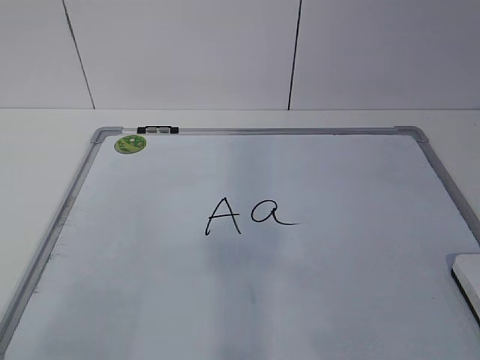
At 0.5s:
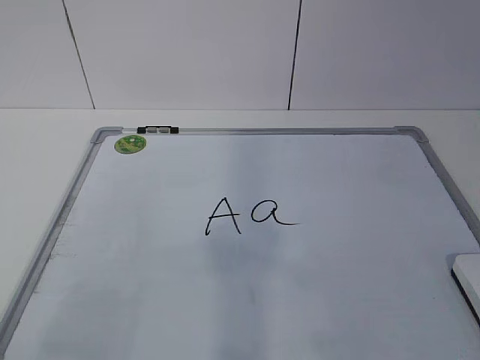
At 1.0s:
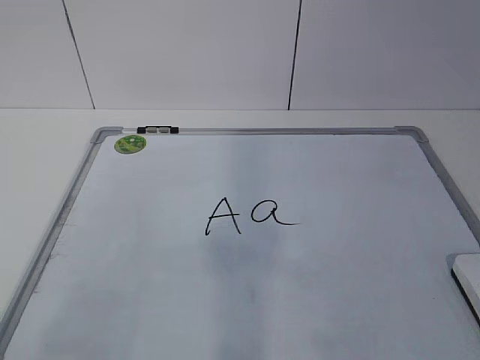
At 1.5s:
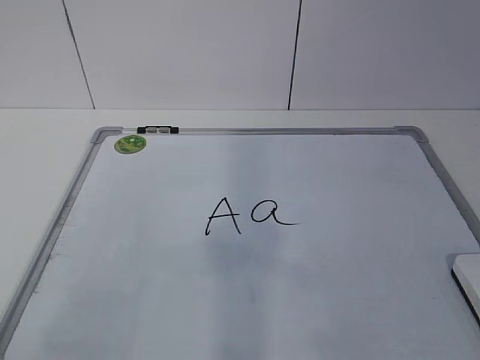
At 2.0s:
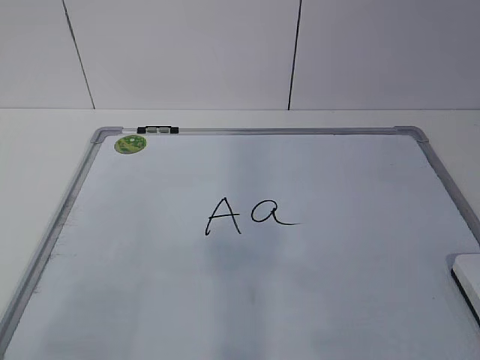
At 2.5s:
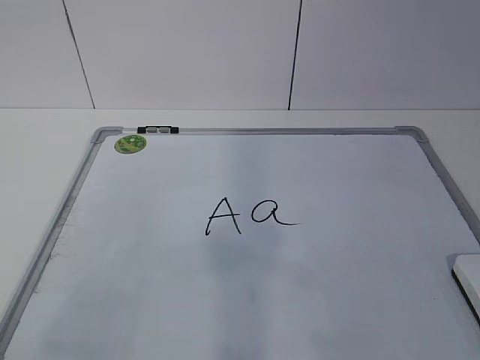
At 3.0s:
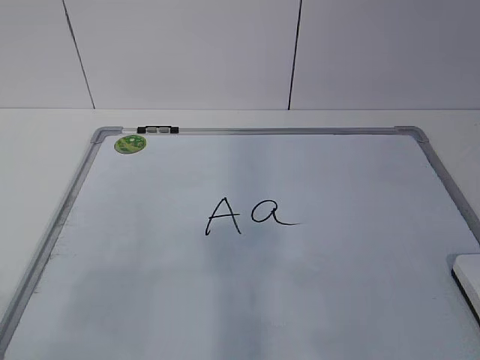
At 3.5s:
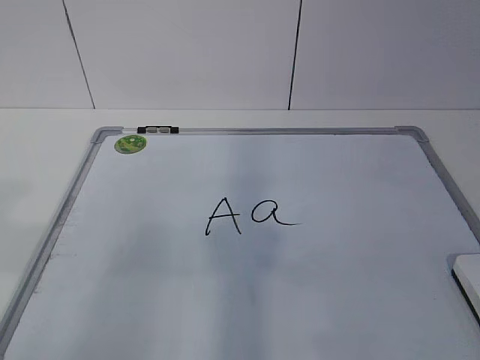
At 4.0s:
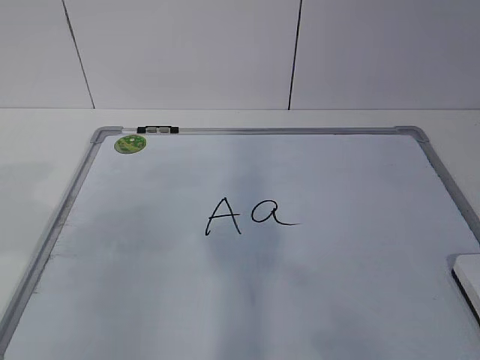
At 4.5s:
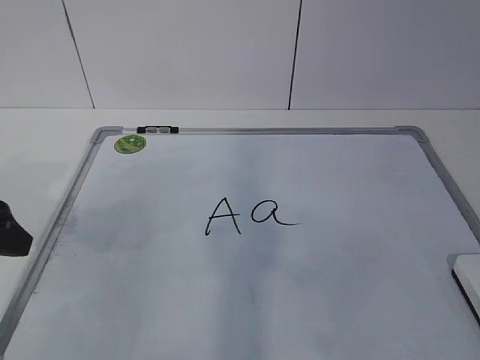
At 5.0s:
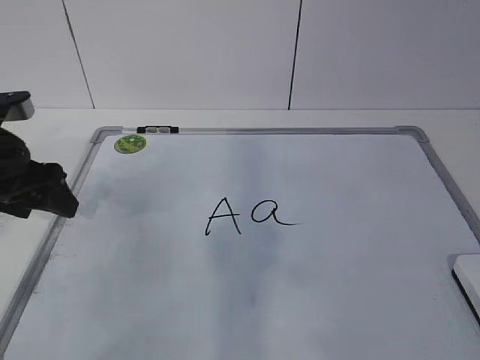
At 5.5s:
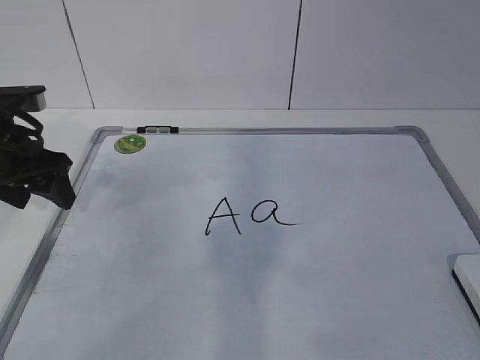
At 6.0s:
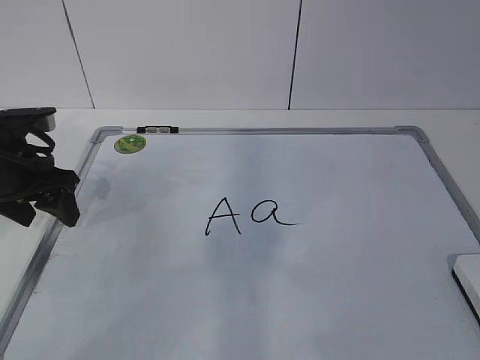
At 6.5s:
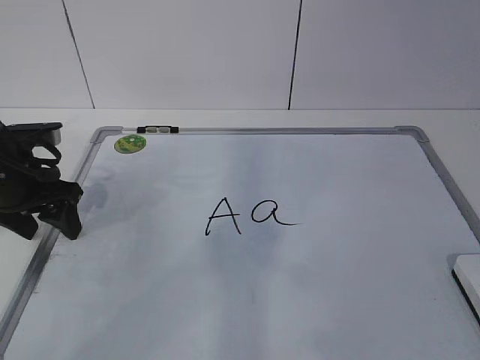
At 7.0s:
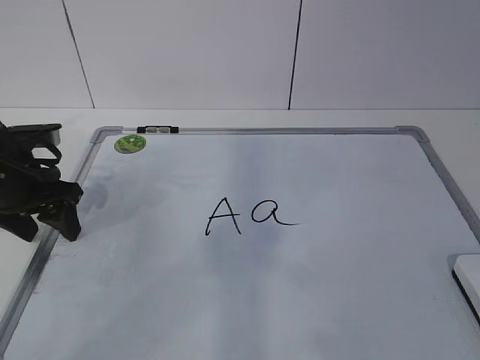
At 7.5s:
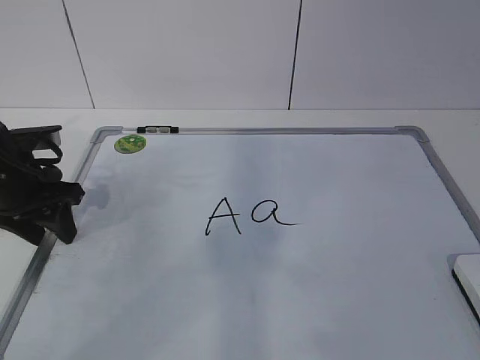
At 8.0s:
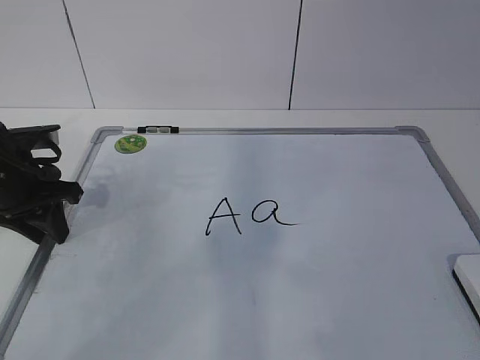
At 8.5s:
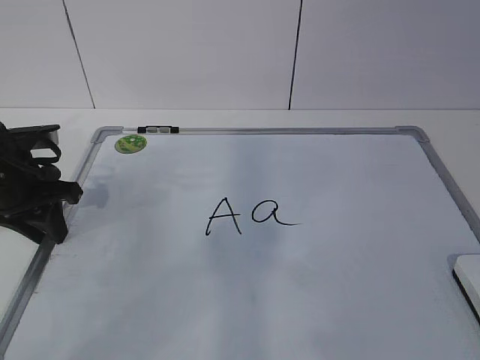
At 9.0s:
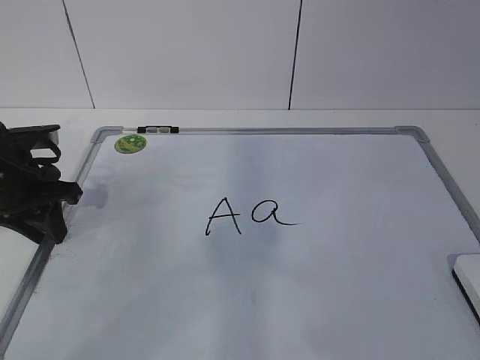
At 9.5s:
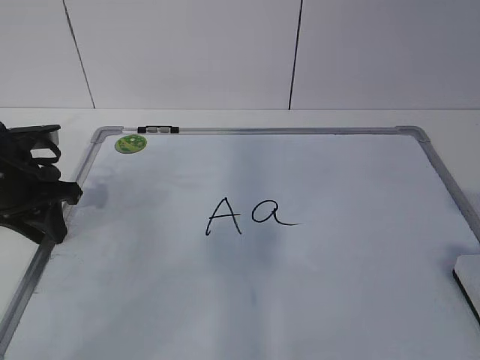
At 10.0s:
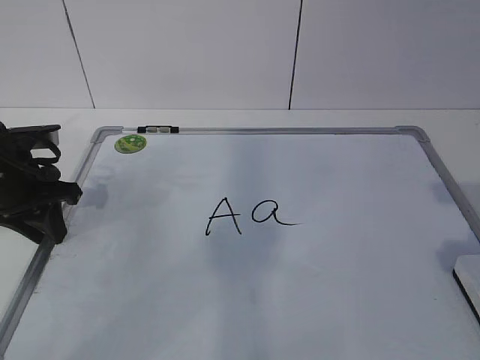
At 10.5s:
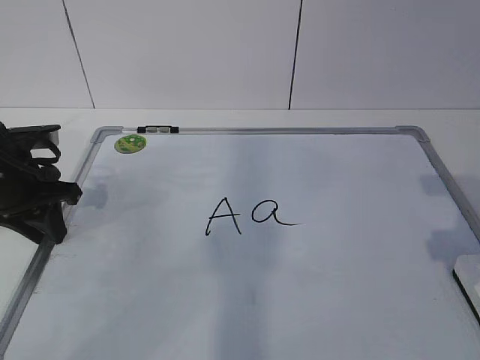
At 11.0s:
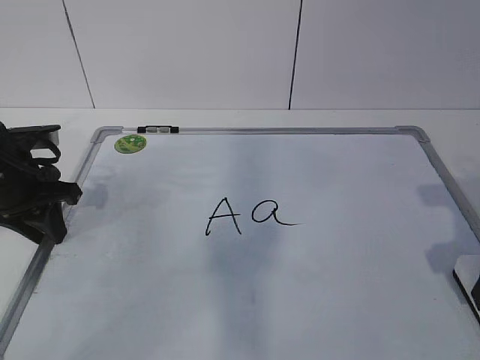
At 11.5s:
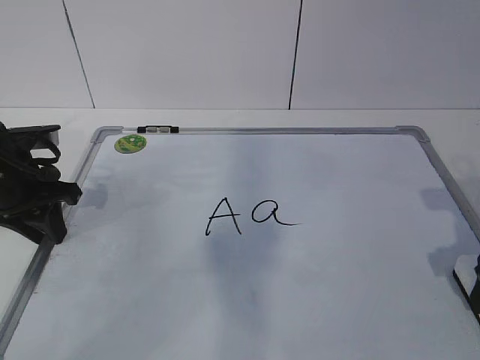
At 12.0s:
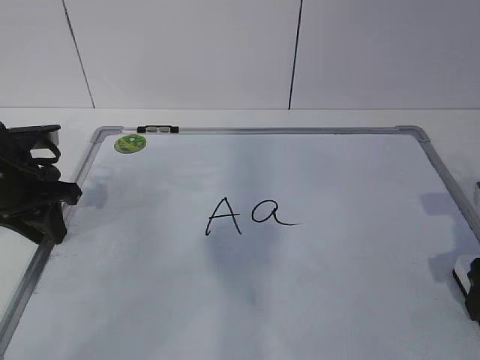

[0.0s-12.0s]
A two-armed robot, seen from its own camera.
Task of the whole recording: pick up the eraser on the blackboard and erase the letter "a".
Step, 0.0s to 6.5s: Hold the drawing board steady with your left hand.
4.0s to 6.0s: The left gripper goes roughly 20 cm forward and downward.
6.0s to 8.0s: The left gripper closes its fingers.
10.0s to 12.0s: The right gripper goes approximately 10 cm downward and forward.

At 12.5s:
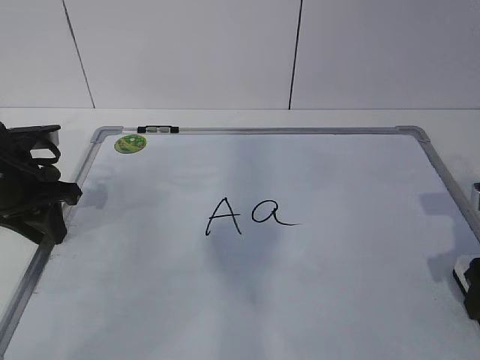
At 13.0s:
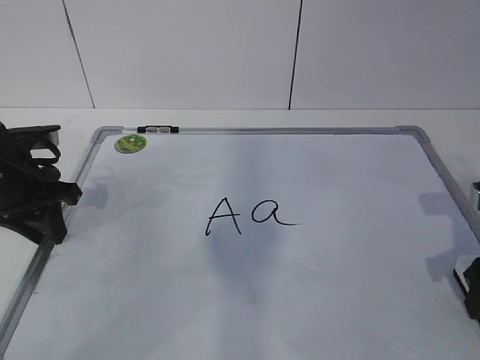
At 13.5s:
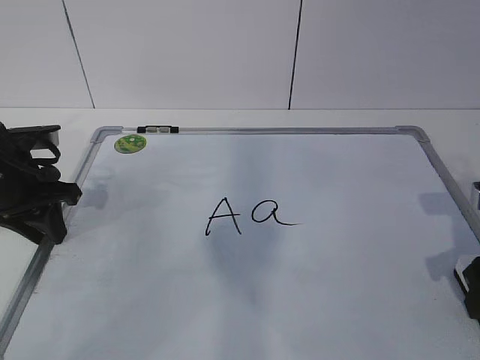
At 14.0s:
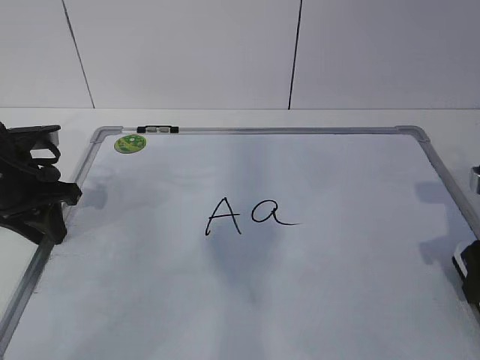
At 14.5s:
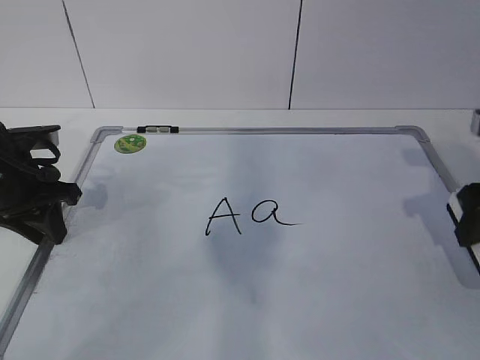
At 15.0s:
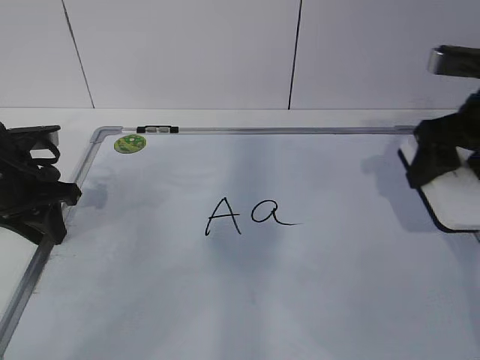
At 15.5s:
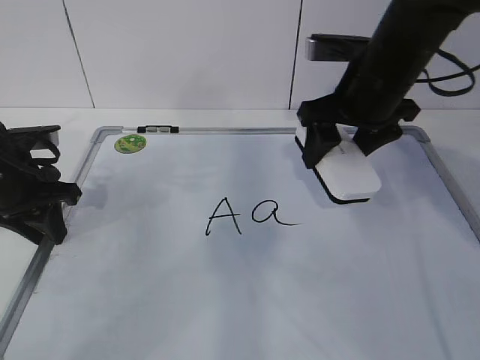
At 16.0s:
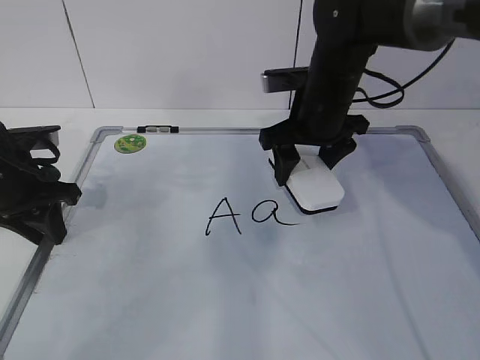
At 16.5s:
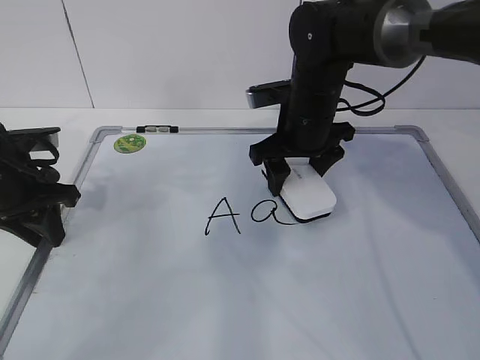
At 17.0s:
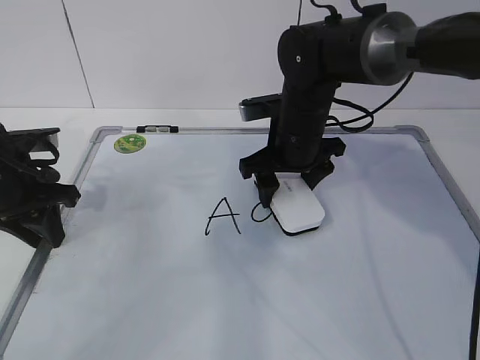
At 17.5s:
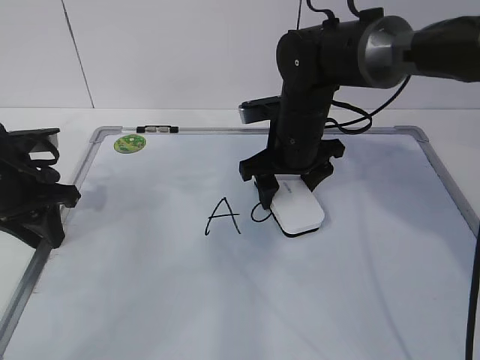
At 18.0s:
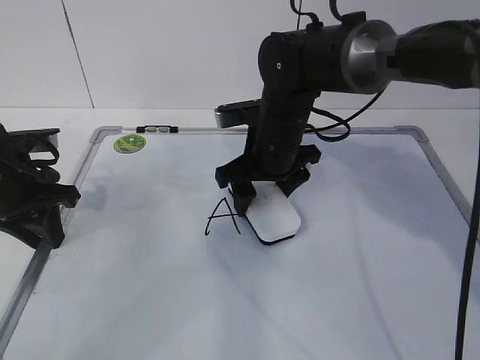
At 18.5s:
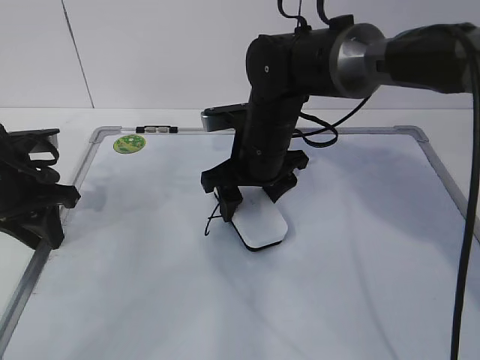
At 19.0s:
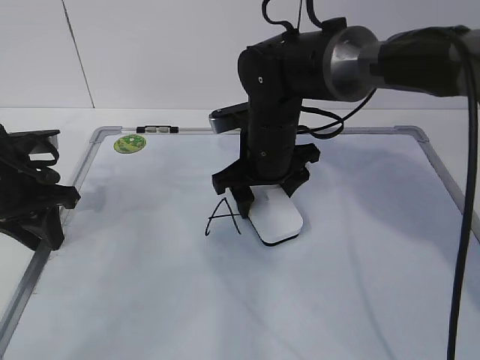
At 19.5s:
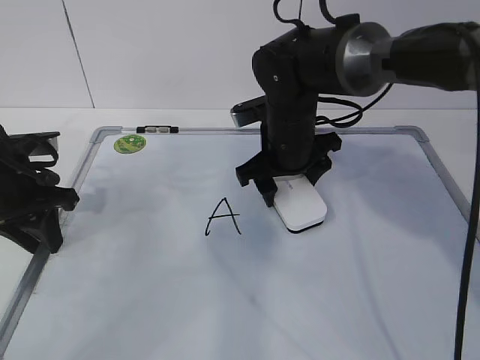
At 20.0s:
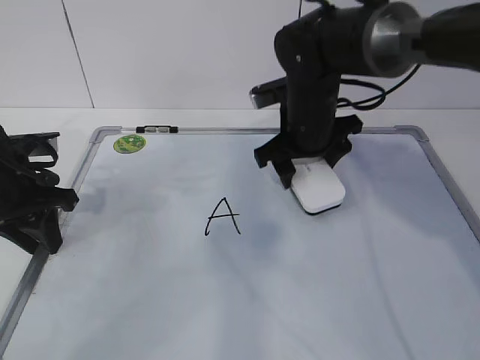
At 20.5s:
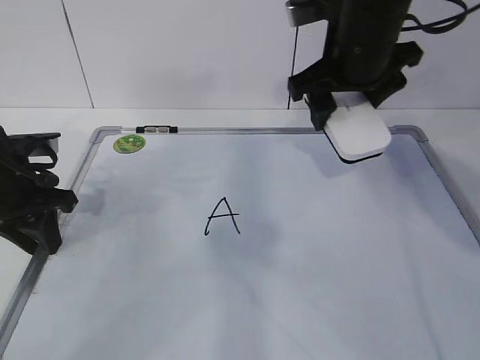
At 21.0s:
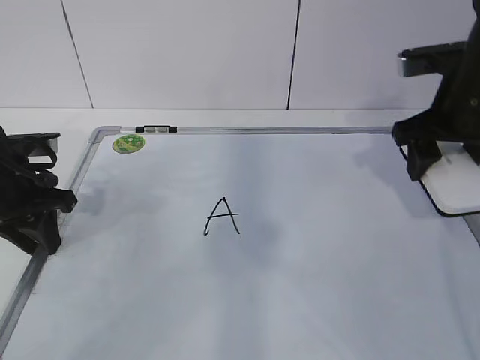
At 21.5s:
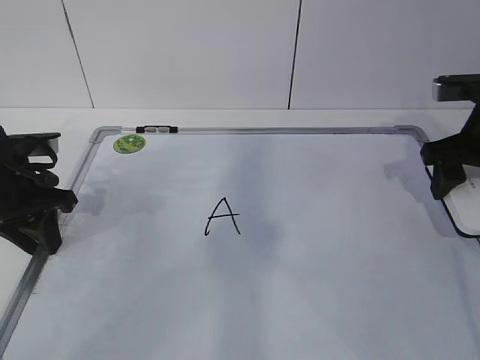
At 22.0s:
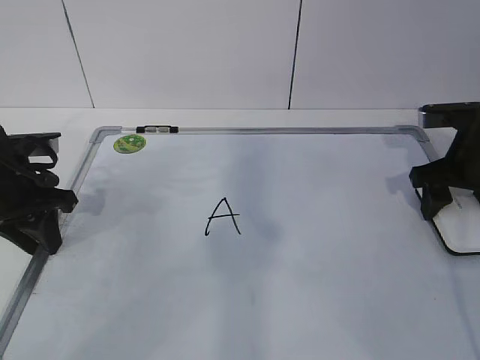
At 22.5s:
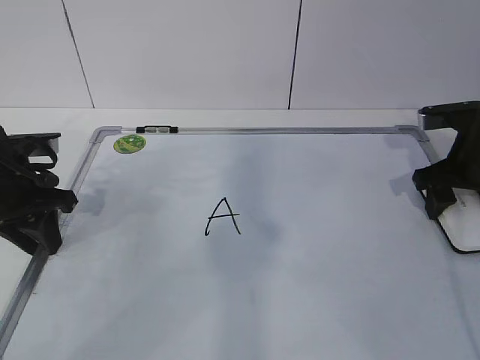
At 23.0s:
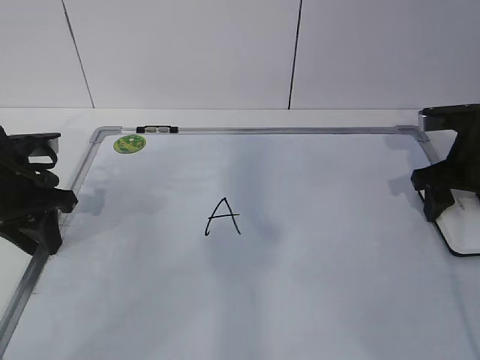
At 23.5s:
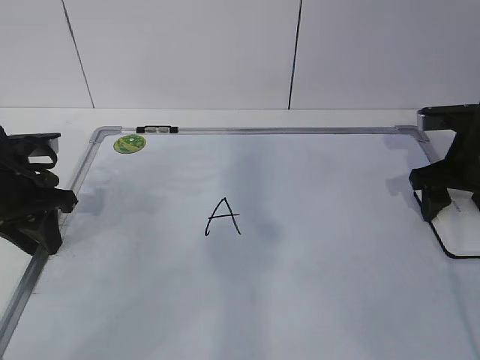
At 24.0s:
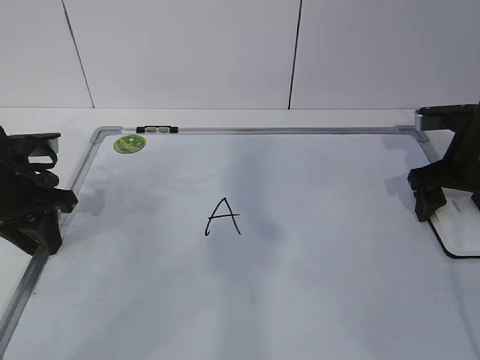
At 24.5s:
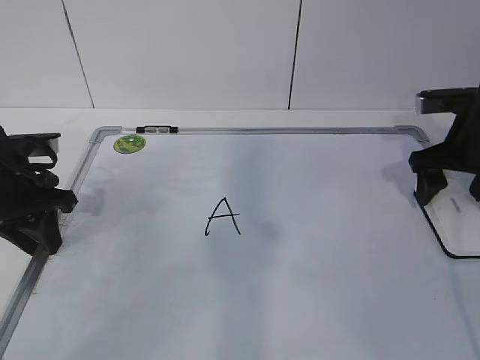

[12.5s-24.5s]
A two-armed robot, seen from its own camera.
Task of the whole recording: pick up the eraser on the blackboard and erase the letter "a".
Step, 12.5s to 16.0s: Erase the letter a with your right hand.
Step, 16.5s to 19.5s: Put down the eraser with your right hand.
12.5s to 14.5s: The right gripper shifts approximately 5 cm upward, and closes its fingers.
14.5s to 16.5s: The right gripper is displaced to the left and forward by approximately 25 cm.
16.5s to 18.5s: The right gripper is displaced to the left by approximately 5 cm.
18.5s to 20.5s: The right gripper moves upward and to the right, roughly 15 cm.
20.5s to 22.5s: The right gripper is displaced to the right and downward by approximately 20 cm.
22.5s to 24.5s: The right gripper opens its fingers.

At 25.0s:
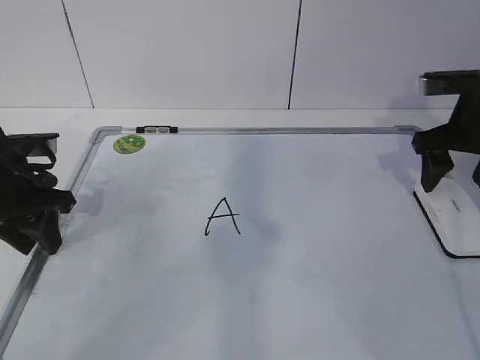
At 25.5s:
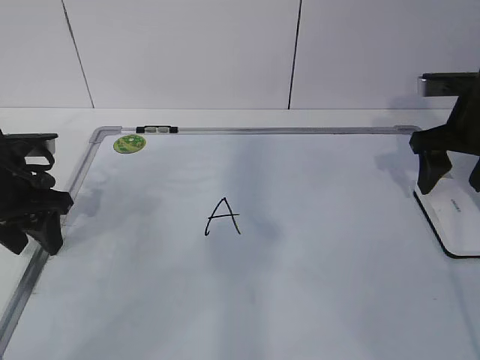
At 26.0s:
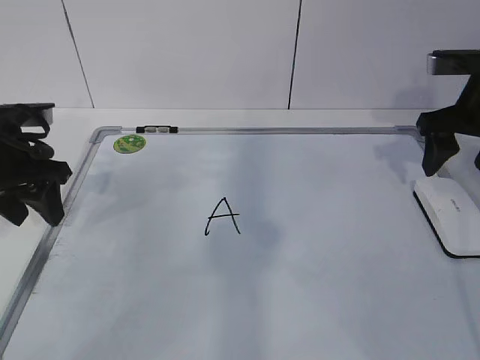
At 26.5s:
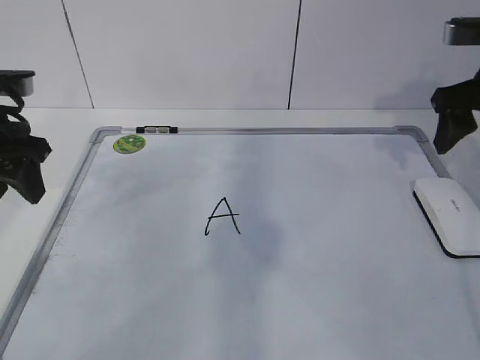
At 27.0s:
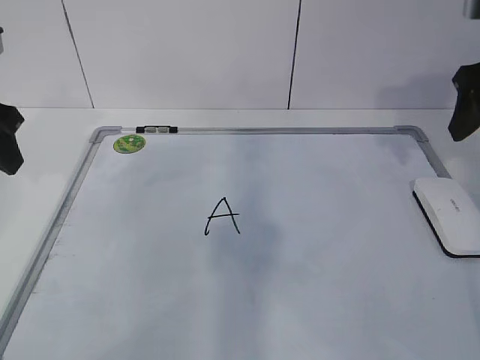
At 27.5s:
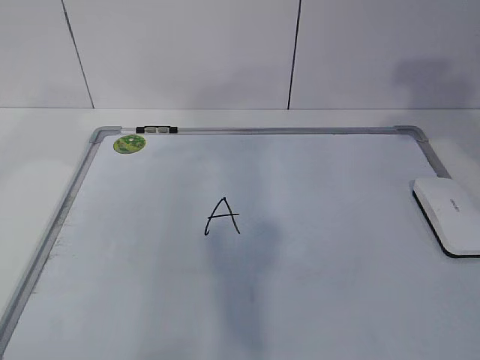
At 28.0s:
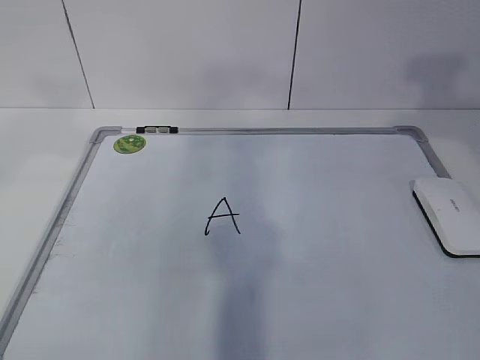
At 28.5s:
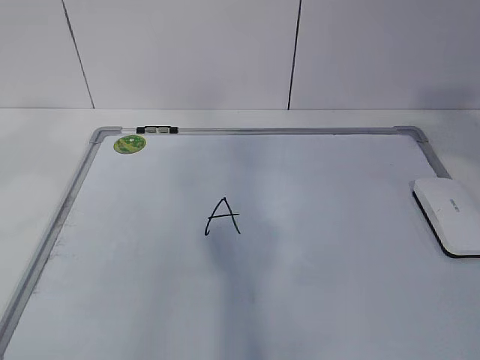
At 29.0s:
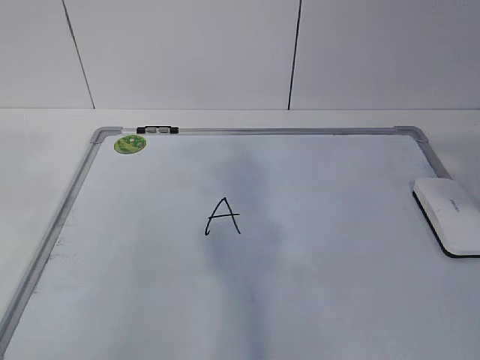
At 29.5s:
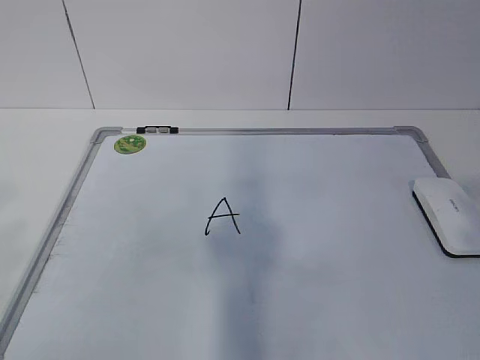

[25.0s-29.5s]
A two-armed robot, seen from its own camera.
Task of the whole recording: pick up the eraser on the blackboard and erase the letter "a".
25.0s to 27.0s: The two grippers go some 10 cm upward. The left gripper opens up.
27.0s to 29.5s: Both grippers move backward, some 30 cm.
